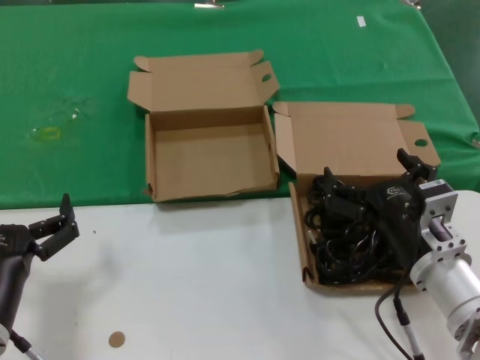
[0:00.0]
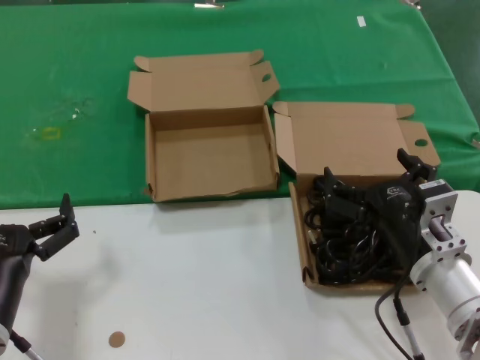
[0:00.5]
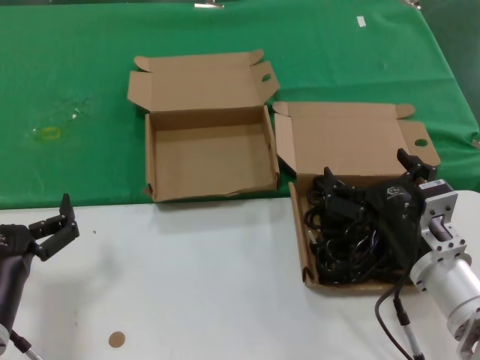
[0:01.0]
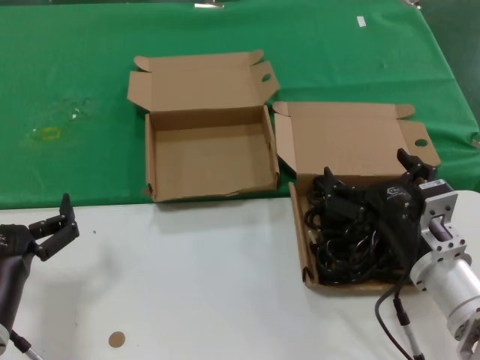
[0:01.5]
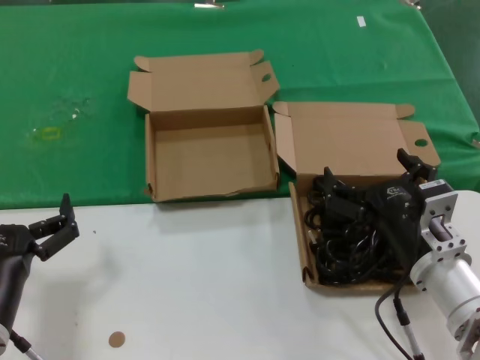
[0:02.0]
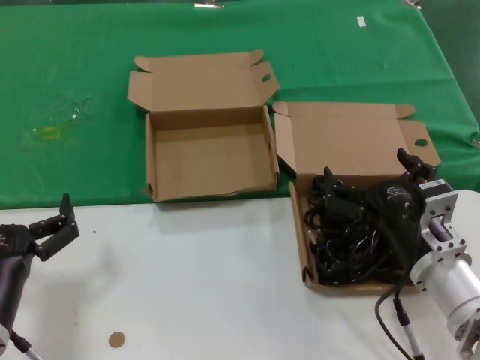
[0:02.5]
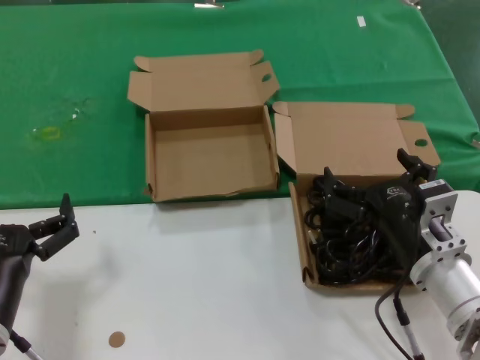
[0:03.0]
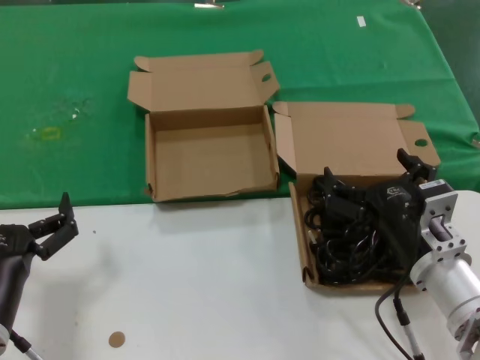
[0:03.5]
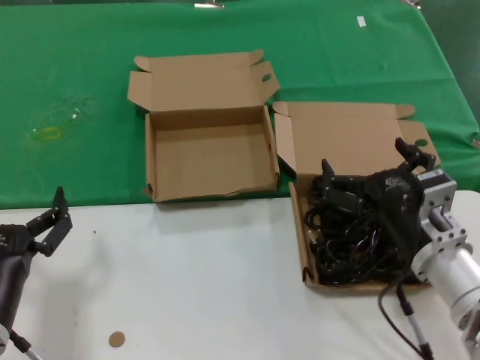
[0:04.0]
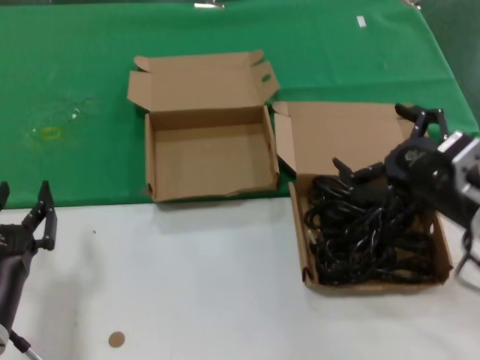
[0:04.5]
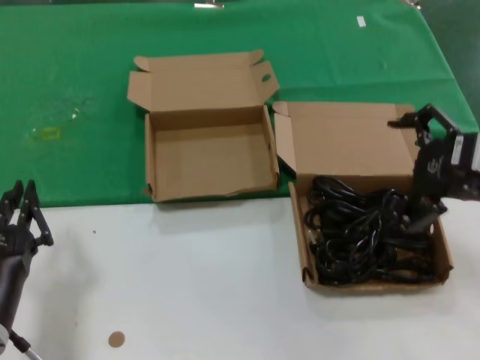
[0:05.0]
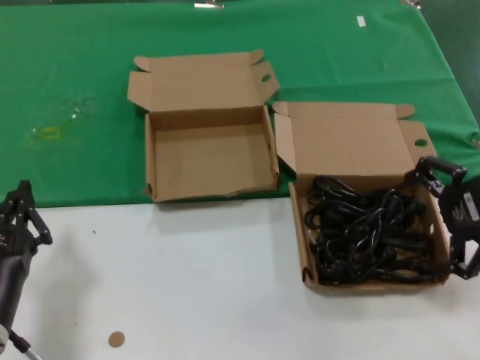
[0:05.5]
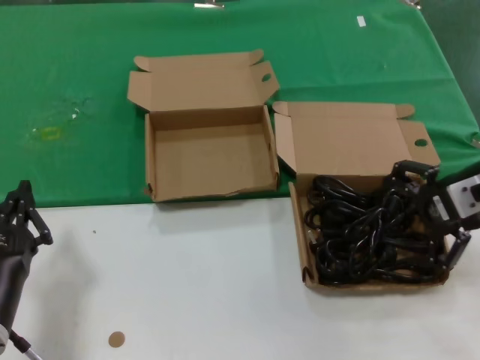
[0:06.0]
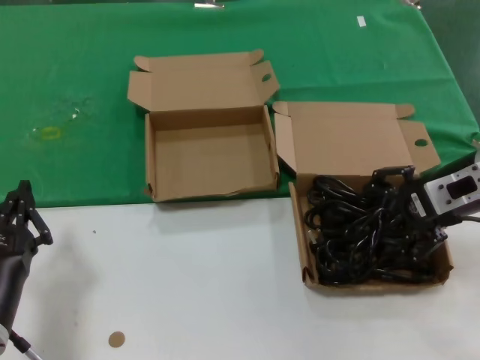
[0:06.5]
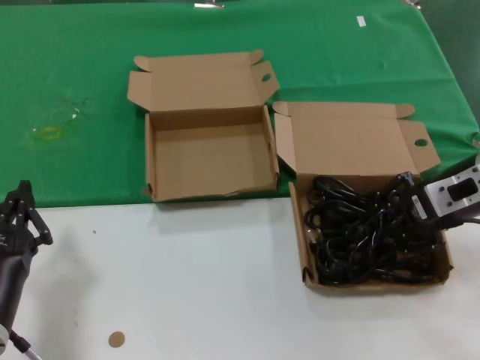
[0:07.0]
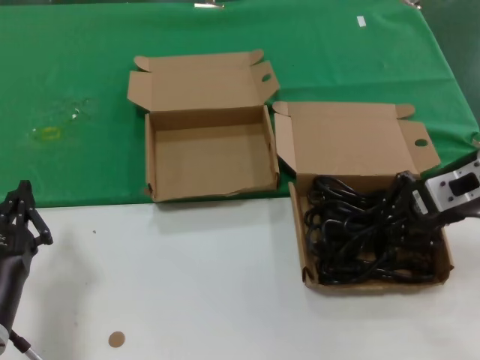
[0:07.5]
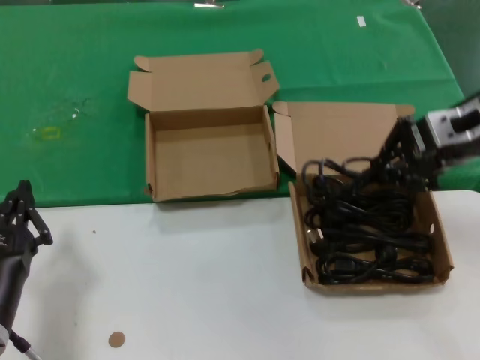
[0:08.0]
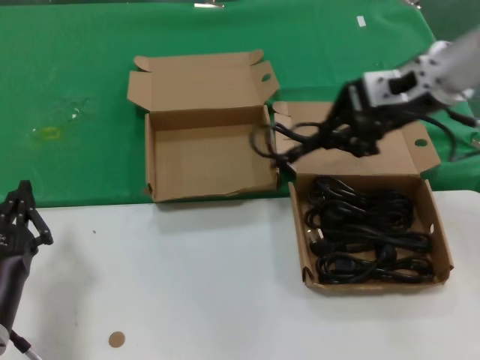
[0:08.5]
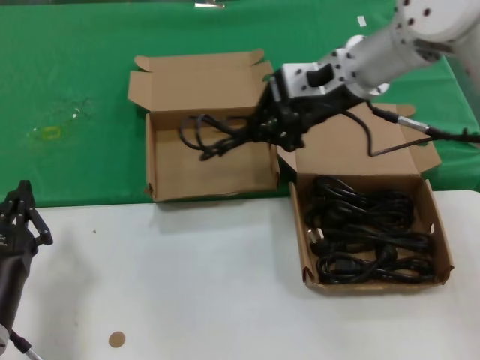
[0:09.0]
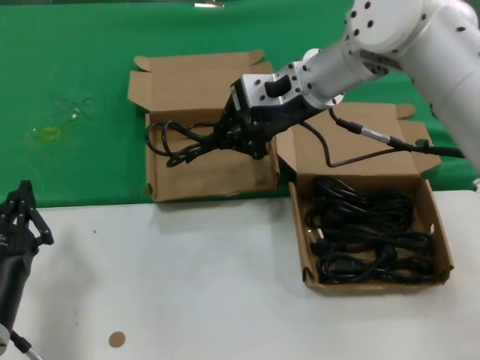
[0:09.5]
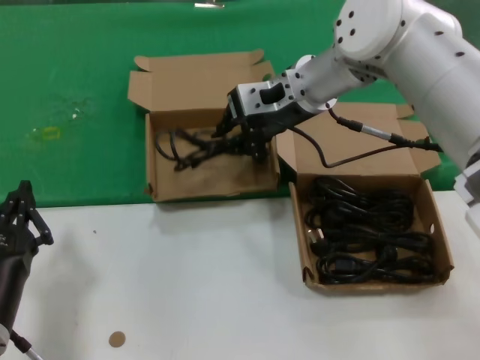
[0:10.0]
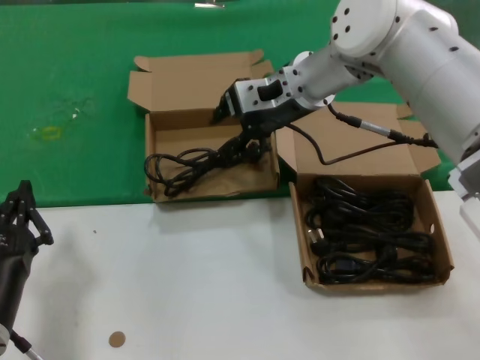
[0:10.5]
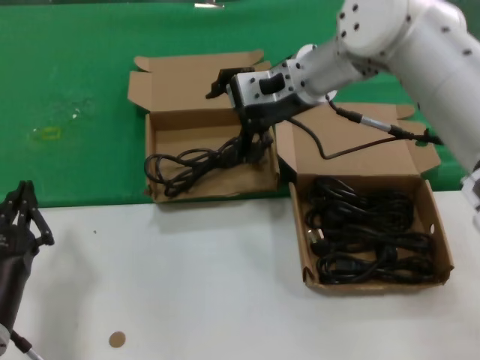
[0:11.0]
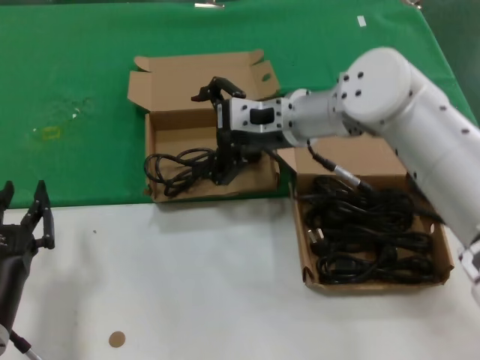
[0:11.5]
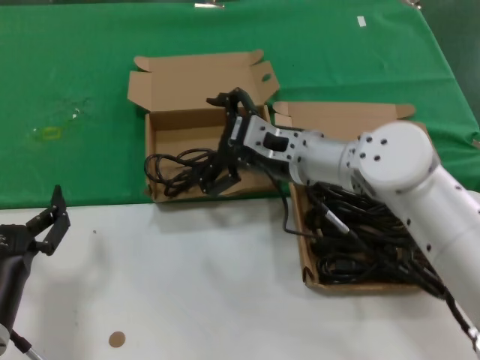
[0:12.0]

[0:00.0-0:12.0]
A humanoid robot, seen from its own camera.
Task of the whole recording: take the parts from the box containing them and put them into an empty box.
Step, 0:00.0 to 0:07.0: Grasp the data cable.
Step, 0:07.5 to 0:10.0: Place the data cable in the another box.
0:00.0 to 0:04.0: Neither hand changes place.
0:04.0 to 0:06.0: The right hand heads upward, to the right and forward, covering approximately 20 cm.
0:06.0 to 0:08.0: The right hand is displaced upward by some 5 cm.
0:08.0 to 0:10.0: The right hand goes approximately 20 cm to the left and forward.
0:10.0 to 0:12.0: The right hand heads downward and backward, covering approximately 15 cm.

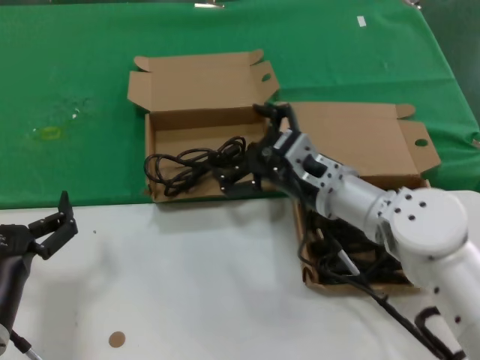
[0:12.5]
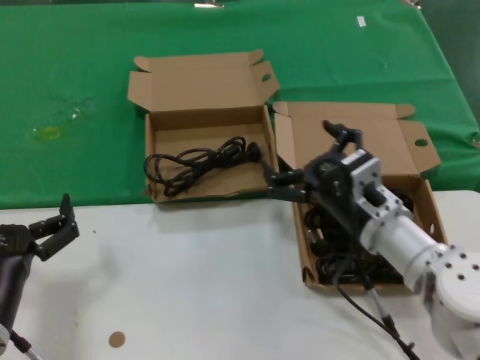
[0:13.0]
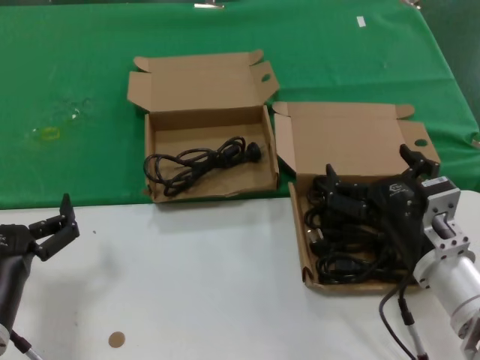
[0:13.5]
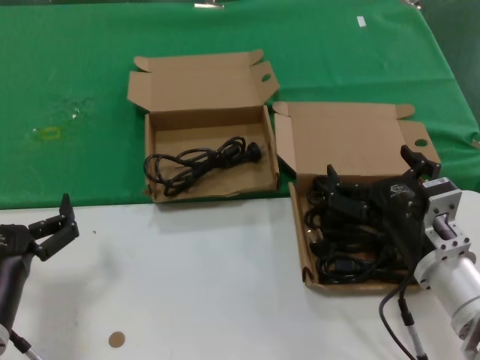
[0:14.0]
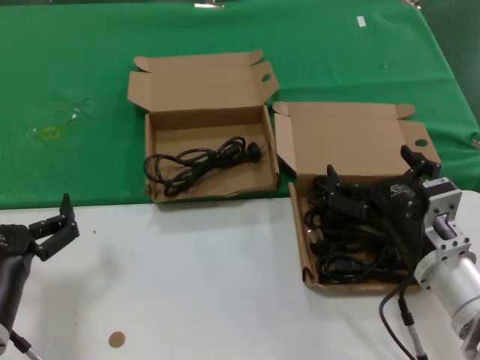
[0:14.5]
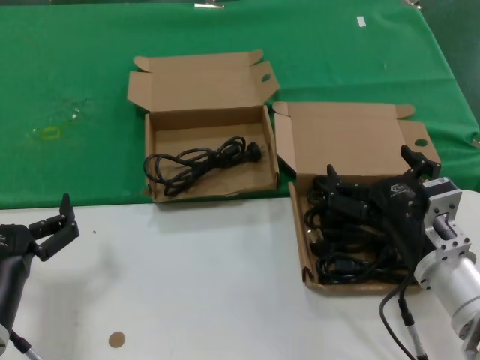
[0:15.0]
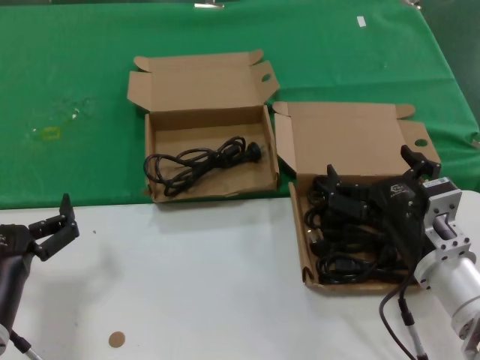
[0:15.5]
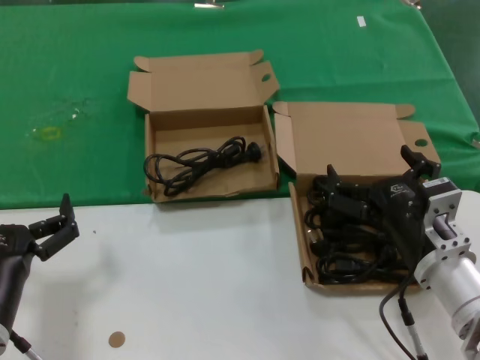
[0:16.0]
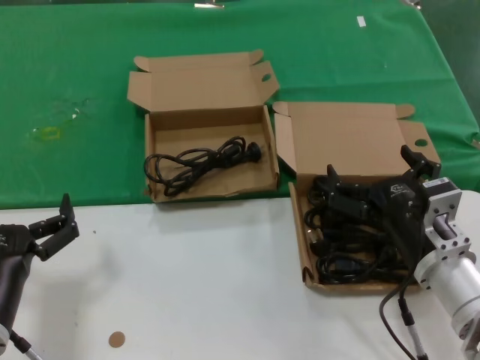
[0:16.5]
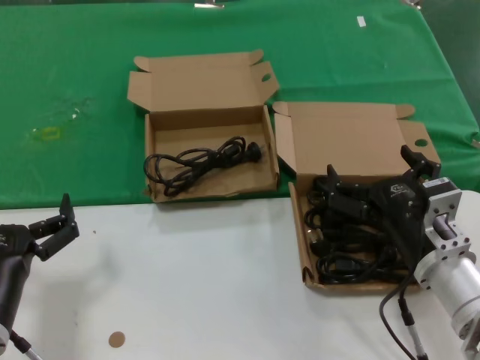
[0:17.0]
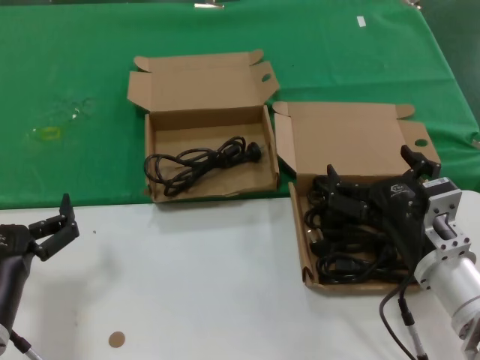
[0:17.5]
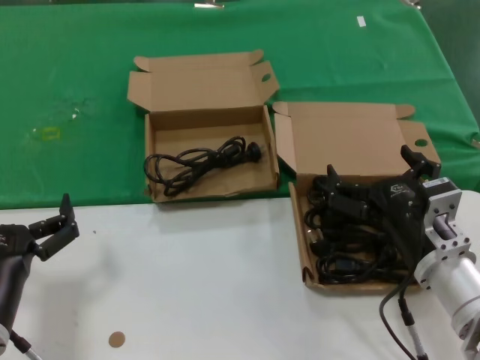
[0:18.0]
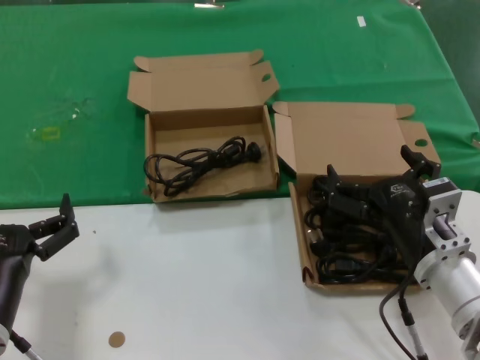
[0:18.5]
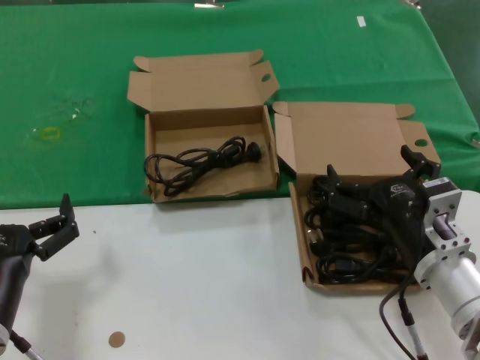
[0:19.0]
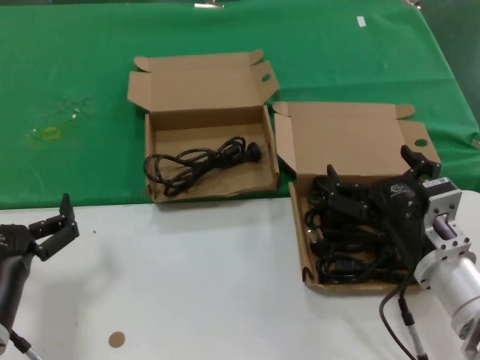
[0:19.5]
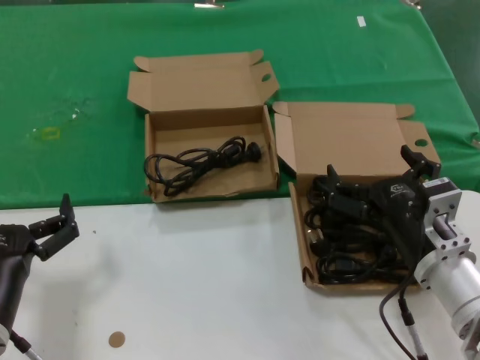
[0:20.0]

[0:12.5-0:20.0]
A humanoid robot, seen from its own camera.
Task of the whole recording: take the parts from the box containing them and put them into an empty box.
0:12.5 to 0:14.5: The right hand travels backward, to the right and downward by about 15 cm.
0:14.5 to 0:20.0: Both hands stay about where they are.

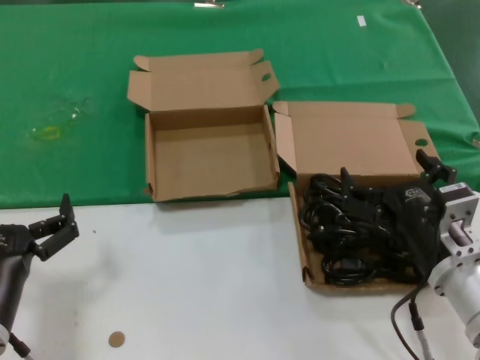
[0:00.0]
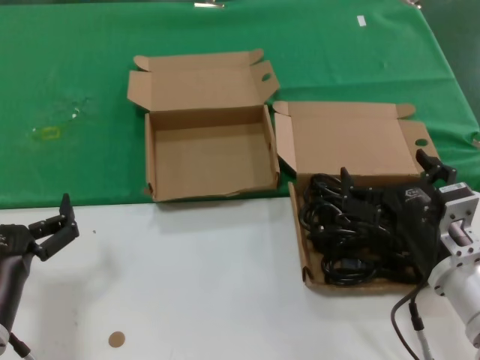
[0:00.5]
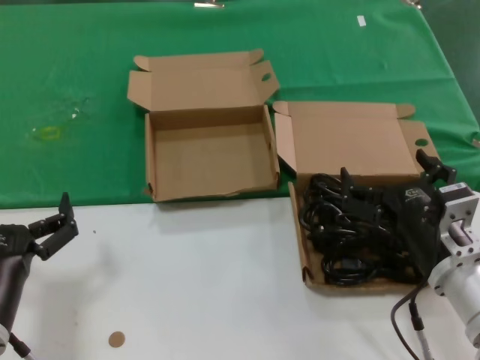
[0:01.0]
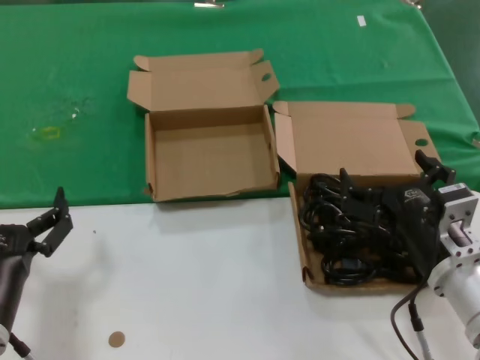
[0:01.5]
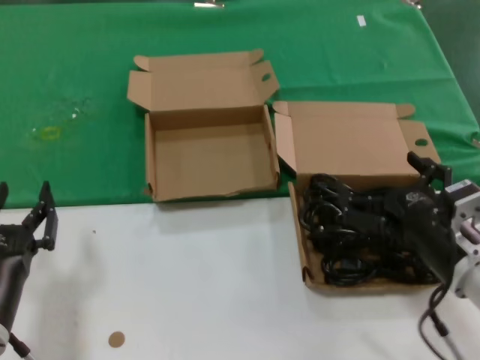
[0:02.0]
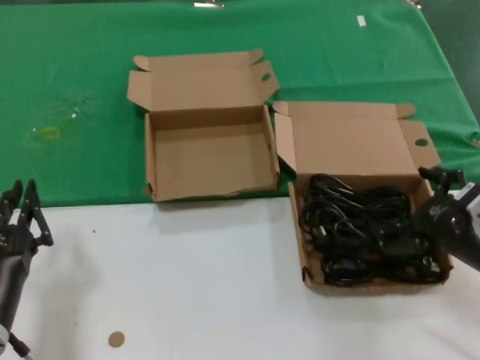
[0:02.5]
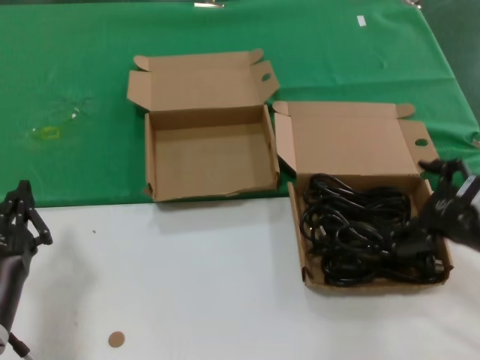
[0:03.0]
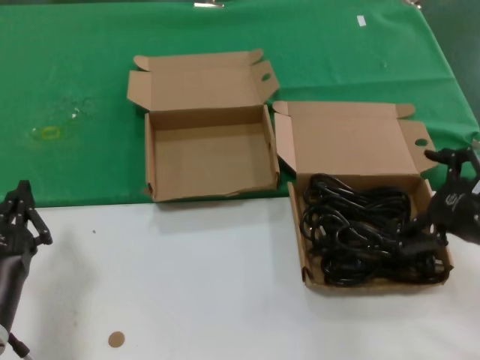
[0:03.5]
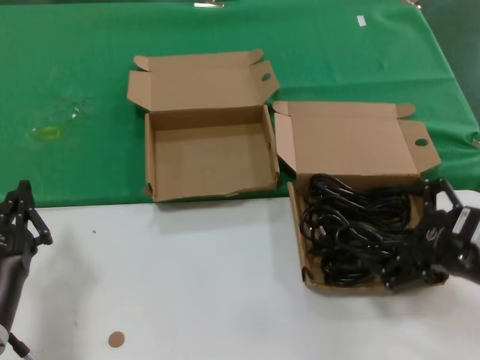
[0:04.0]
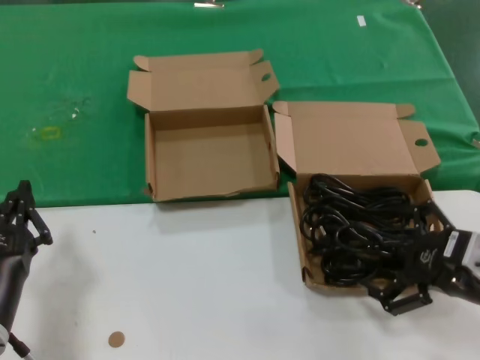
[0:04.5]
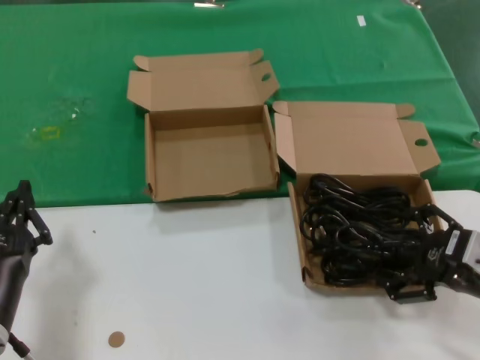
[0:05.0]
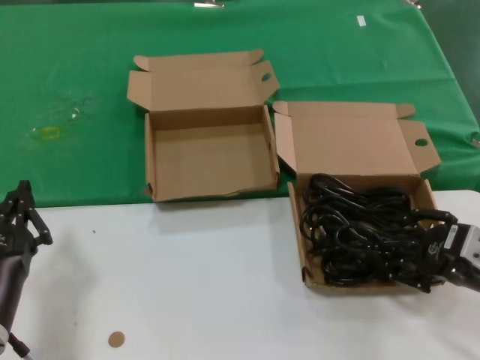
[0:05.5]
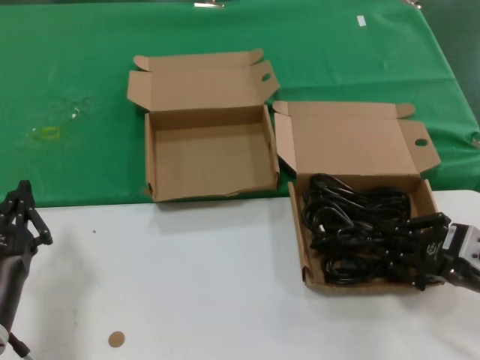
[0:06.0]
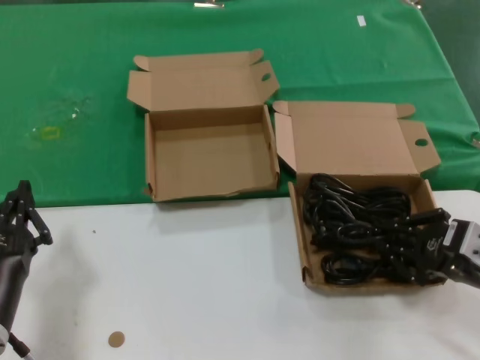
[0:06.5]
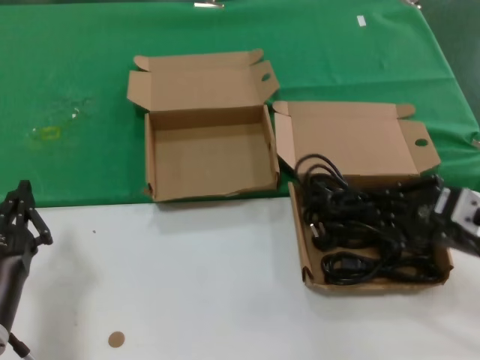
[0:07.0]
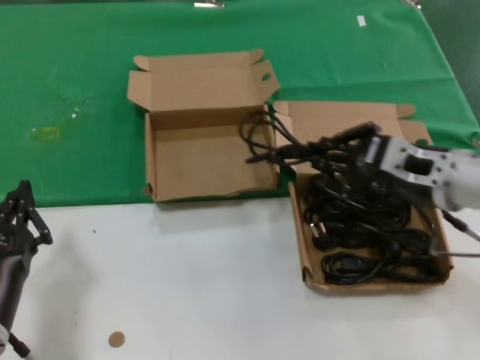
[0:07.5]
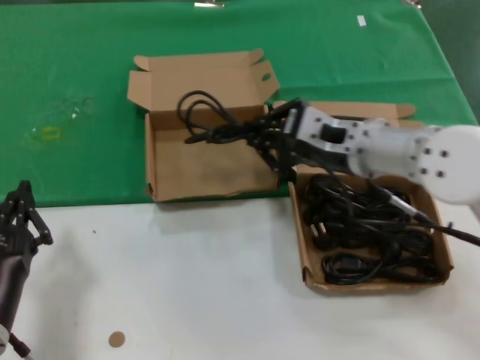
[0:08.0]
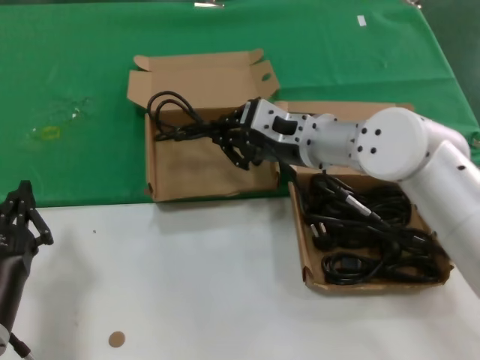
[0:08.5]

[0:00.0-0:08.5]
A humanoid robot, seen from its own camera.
Task of the whole recording: take the parts from the box containing them and put them into an empty box.
Step, 0:00.0 to 0:05.5: Grasp the data cable.
0:00.0 to 0:02.0: The hands stay close to where they were, moving slightly.
0:02.0 to 0:04.0: The right hand travels to the right and upward by about 10 cm.
0:04.0 to 0:06.5: The hands make only small movements.
0:06.5 to 0:08.5: The right hand goes some 30 cm to the left and forward.
